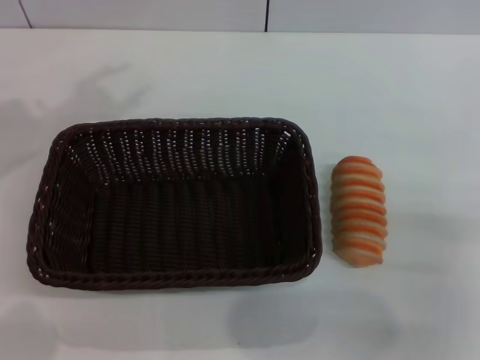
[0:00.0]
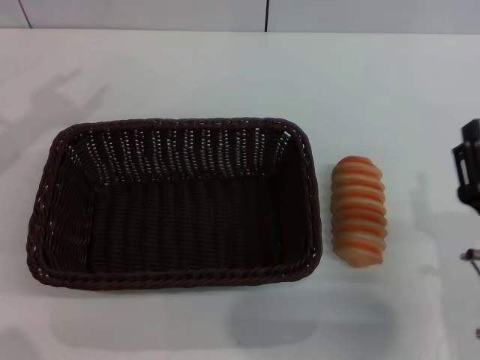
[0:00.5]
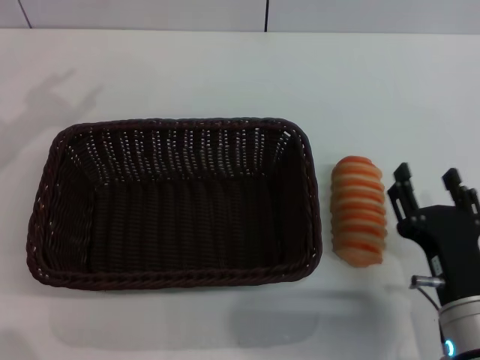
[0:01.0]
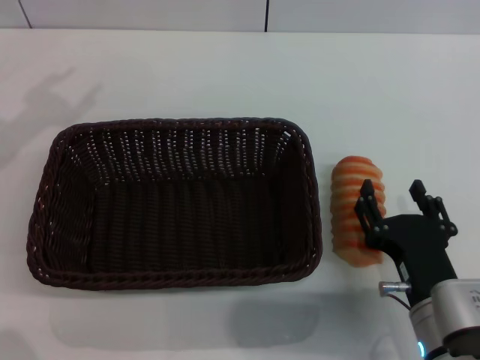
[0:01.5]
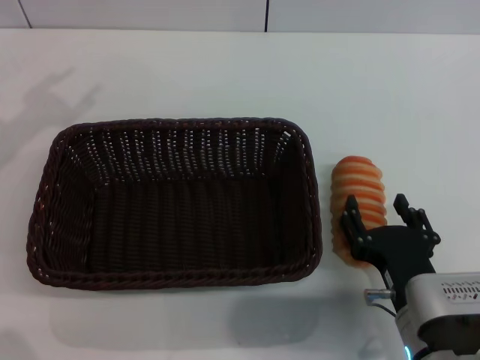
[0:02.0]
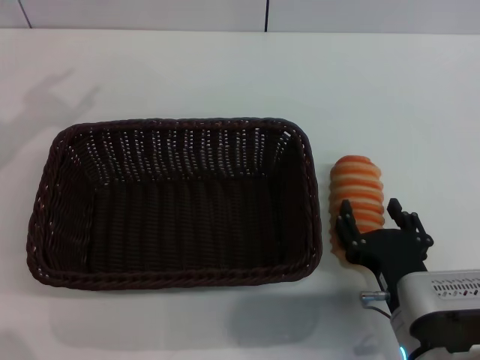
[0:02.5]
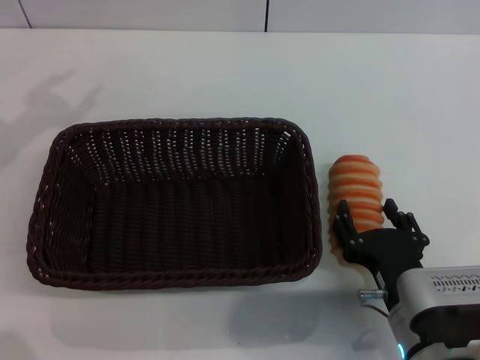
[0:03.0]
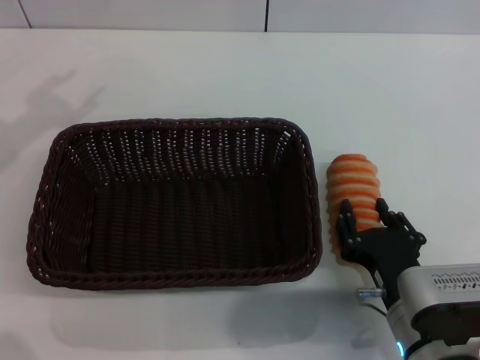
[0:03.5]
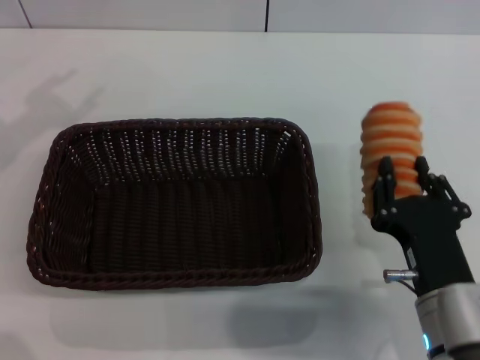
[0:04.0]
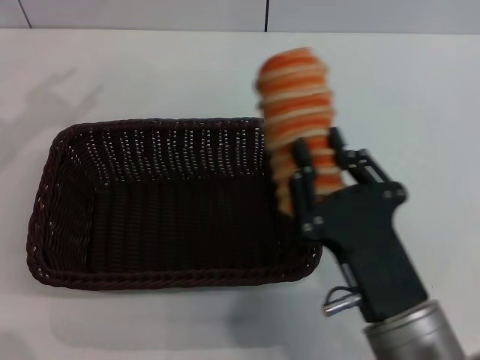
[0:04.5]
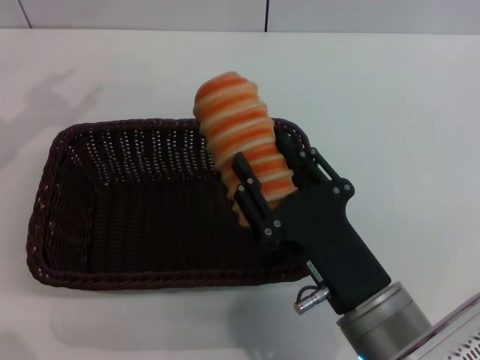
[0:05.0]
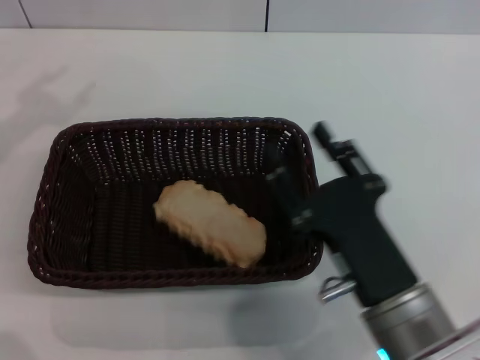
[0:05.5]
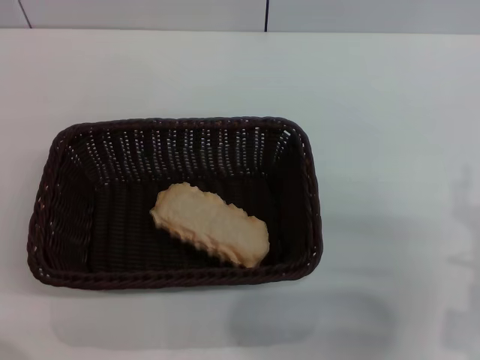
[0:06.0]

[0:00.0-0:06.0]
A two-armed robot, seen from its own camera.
Step, 0:00.0 to 0:04.0: Pick up the long bread with the right gripper.
Step, 0:04.5 to 0:05.5: Place the long bread into the dark basket with the right gripper.
0:00.0 to 0:02.0: The right gripper goes about 10 cm to the left.
0:02.0 to 0:04.0: The right gripper closes up.
0:04.0 to 0:06.0: The right gripper is displaced to the right by some 5 cm, and opens its fingers, while the left gripper heads to the left and downward, covering some 10 cm.
